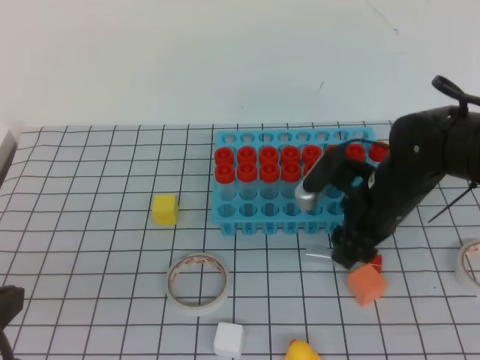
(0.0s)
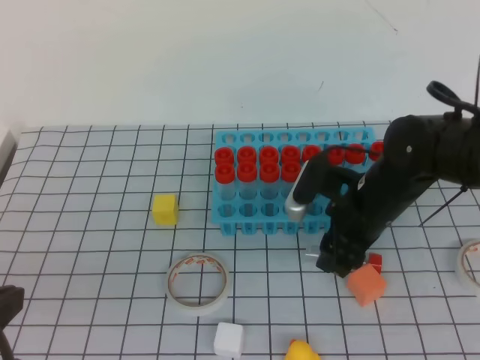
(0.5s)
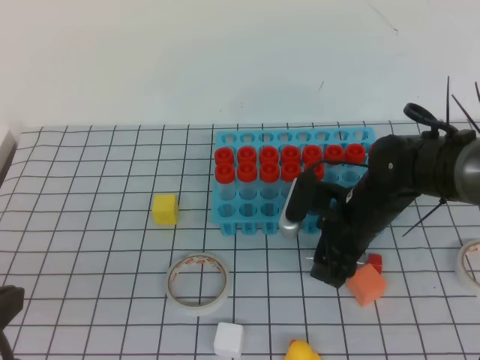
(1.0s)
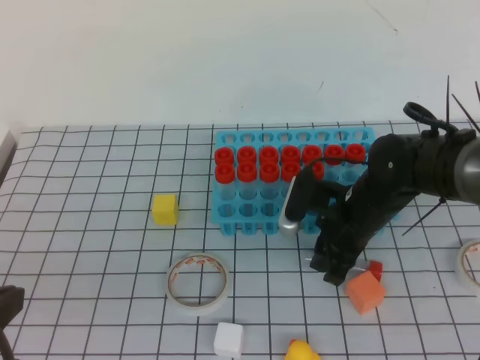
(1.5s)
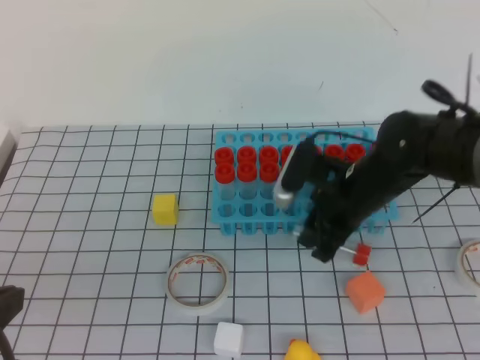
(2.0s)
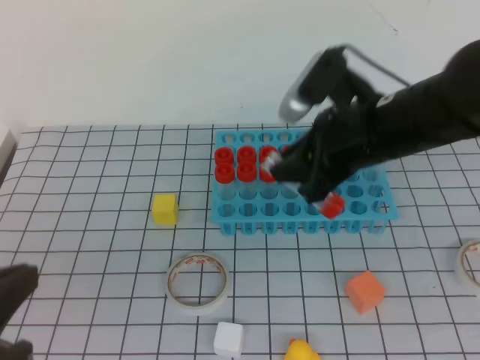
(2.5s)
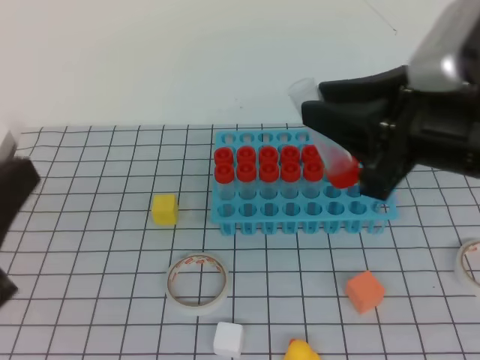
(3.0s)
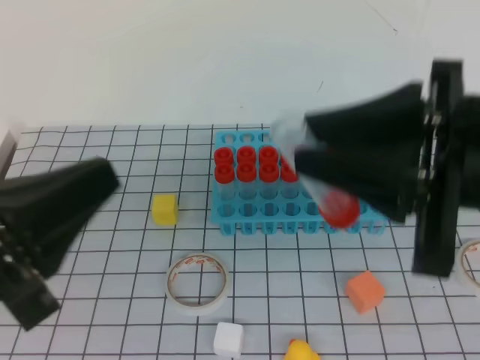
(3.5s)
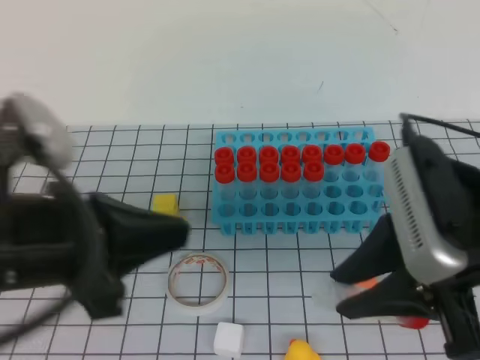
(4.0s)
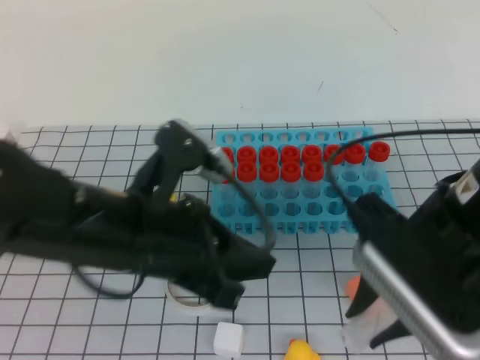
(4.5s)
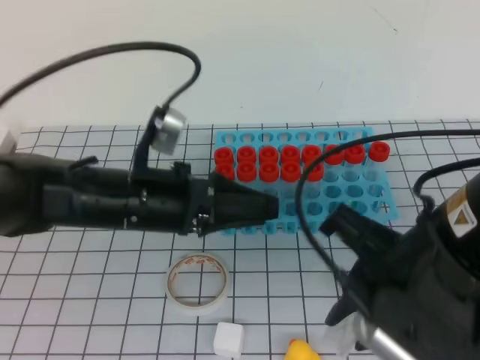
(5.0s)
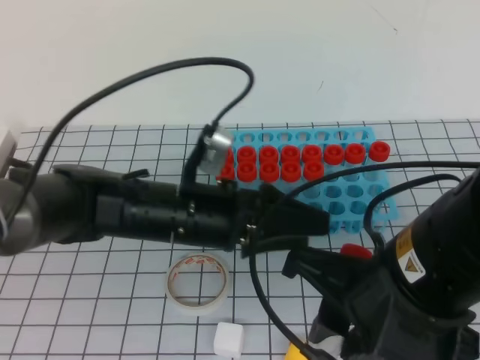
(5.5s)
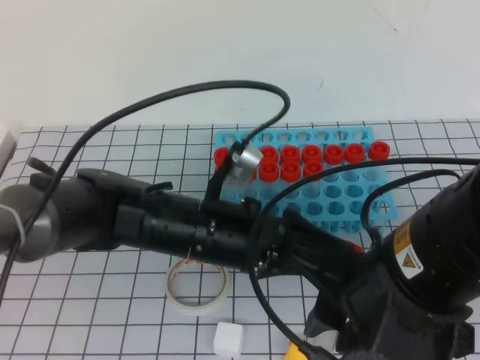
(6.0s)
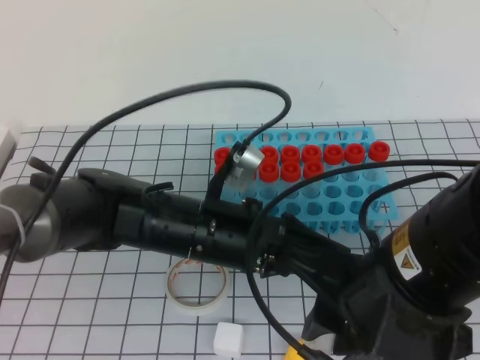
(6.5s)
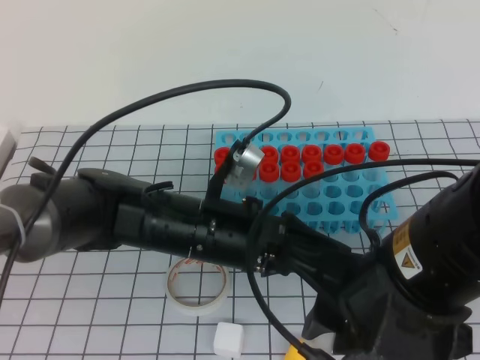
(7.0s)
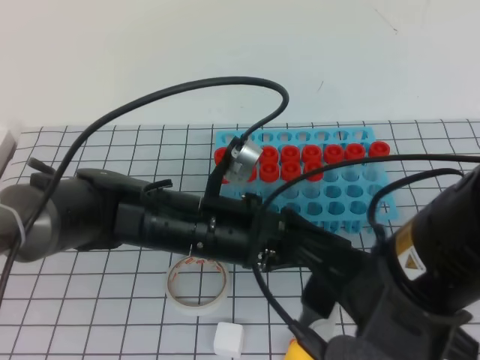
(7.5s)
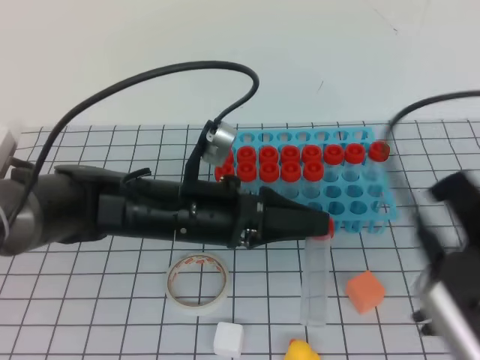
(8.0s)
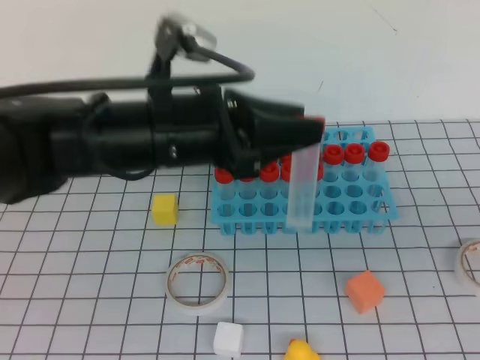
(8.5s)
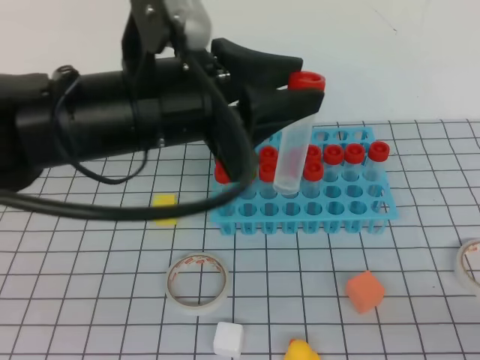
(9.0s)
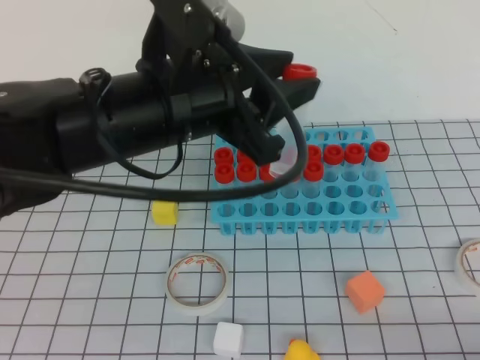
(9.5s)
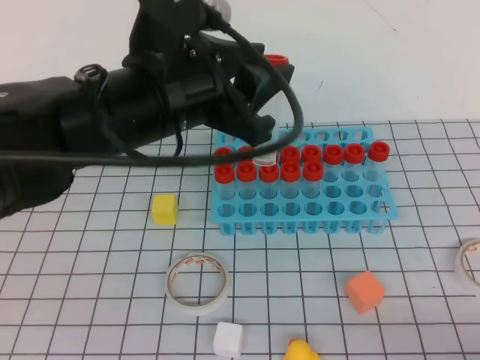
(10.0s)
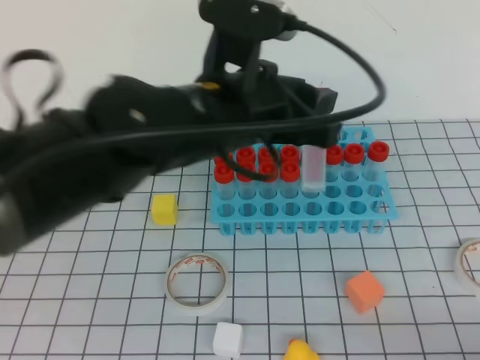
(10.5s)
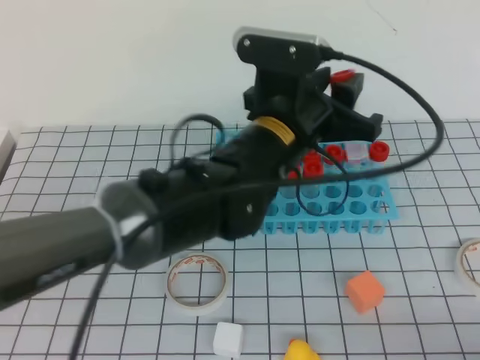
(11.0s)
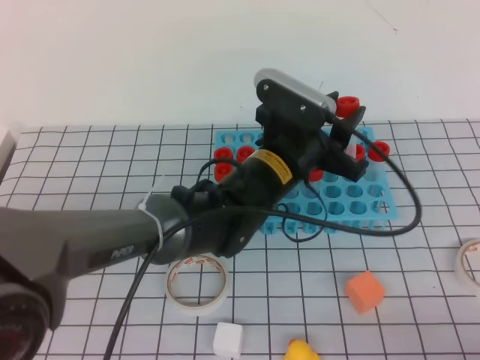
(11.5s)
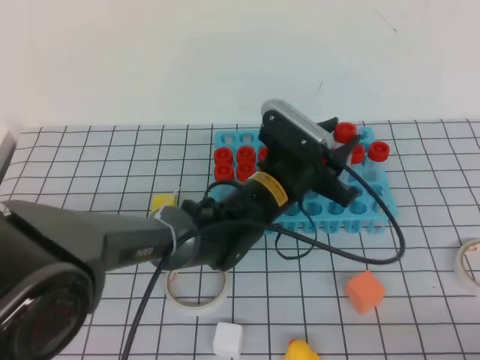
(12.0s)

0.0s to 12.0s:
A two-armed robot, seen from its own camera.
0.0s to 2.0s: The right gripper closes up.
2.0s to 4.0s: The left gripper is displaced forward and to the right by about 10 cm, while the right gripper travels backward and upward by approximately 20 cm.
4.0s to 6.0s: The left gripper is displaced to the right, forward and downward by about 20 cm, and opens, while the right gripper moves to the left, roughly 5 cm.
6.0s to 8.0s: The right gripper is displaced to the right and upward by roughly 10 cm, and opens, then closes once more. Meanwhile the left gripper closes its fingers.
8.0s to 10.0s: The right gripper is displaced downward, to the right and backward by some 20 cm. Meanwhile the left gripper heads upward, covering approximately 10 cm.
10.0s to 12.0s: The left gripper heads downward, to the right and forward, covering roughly 20 cm.

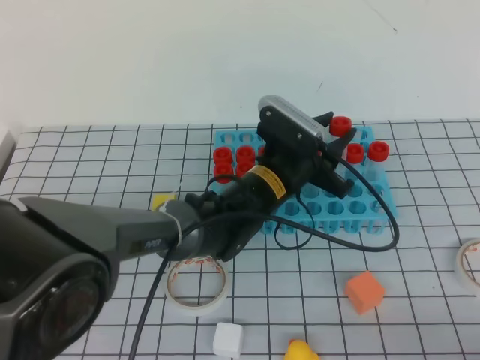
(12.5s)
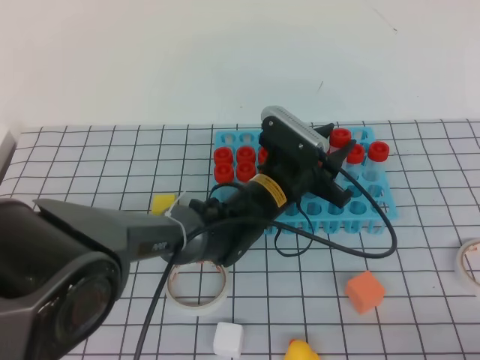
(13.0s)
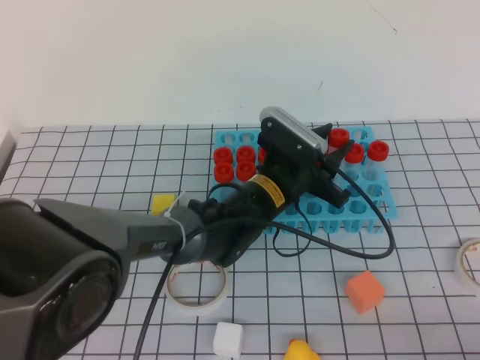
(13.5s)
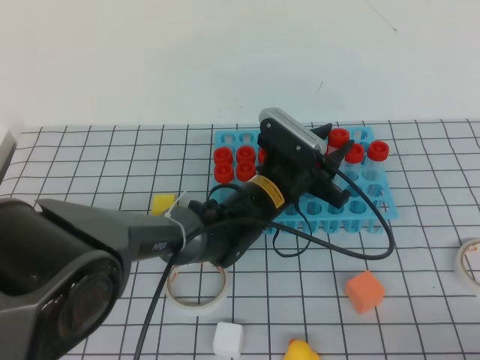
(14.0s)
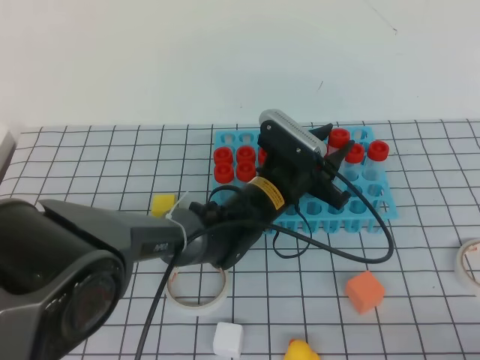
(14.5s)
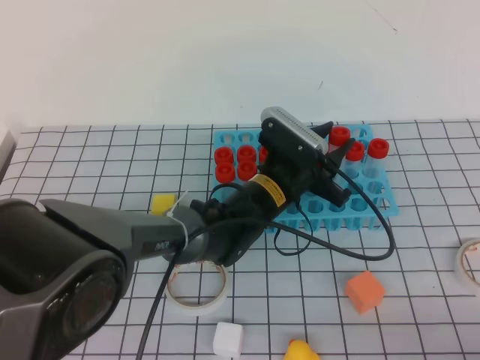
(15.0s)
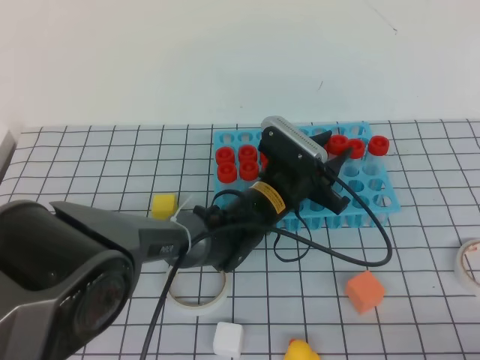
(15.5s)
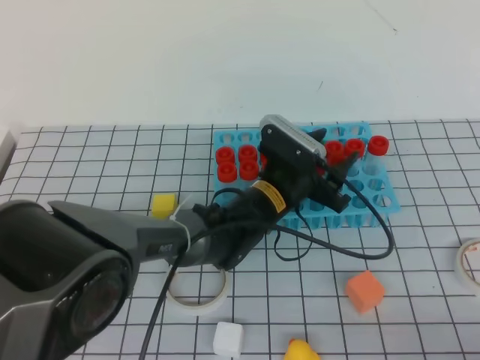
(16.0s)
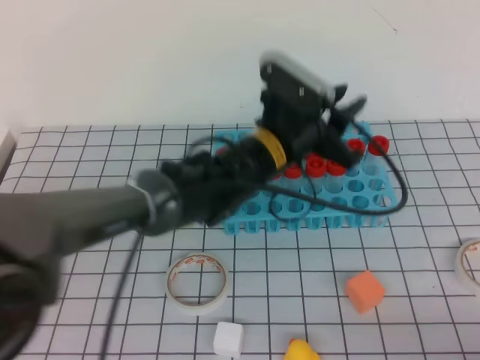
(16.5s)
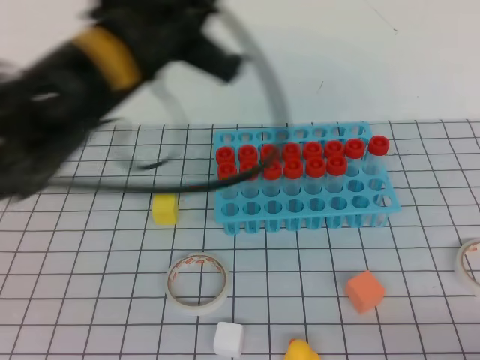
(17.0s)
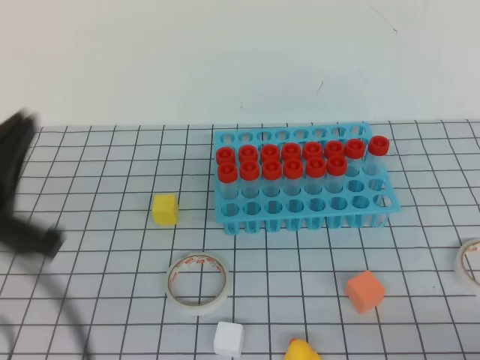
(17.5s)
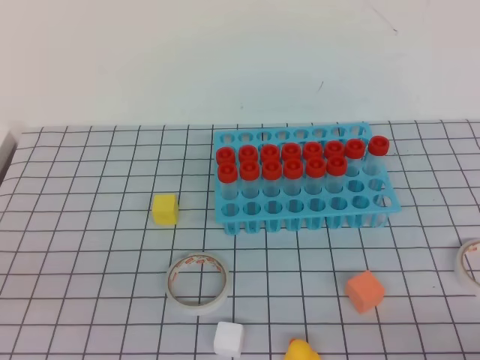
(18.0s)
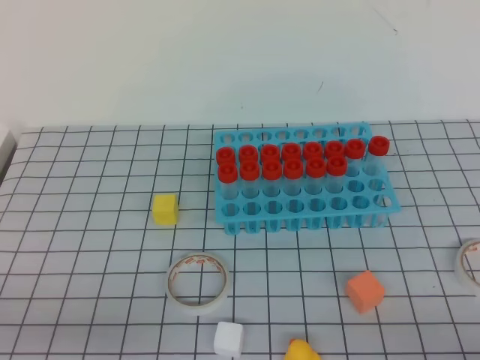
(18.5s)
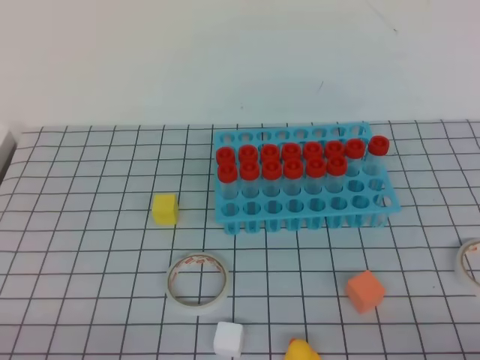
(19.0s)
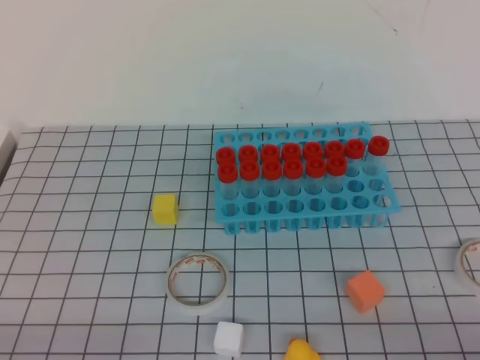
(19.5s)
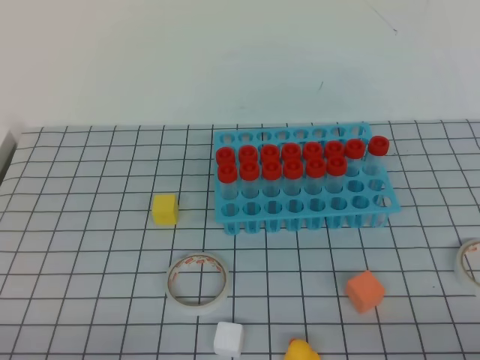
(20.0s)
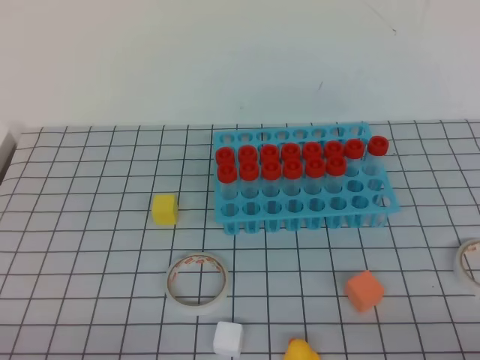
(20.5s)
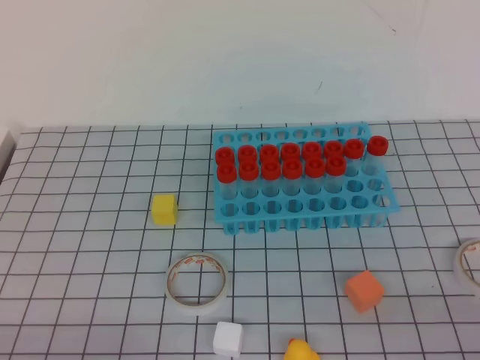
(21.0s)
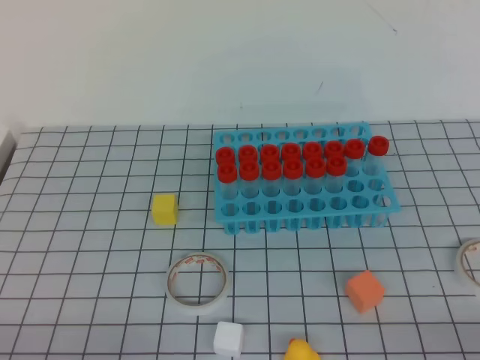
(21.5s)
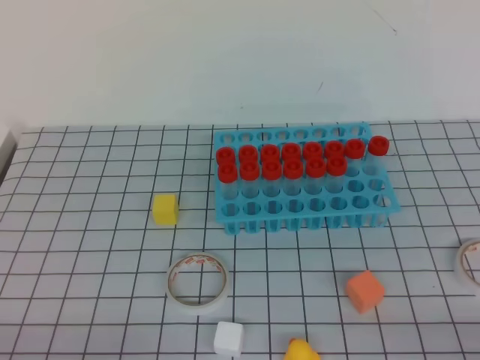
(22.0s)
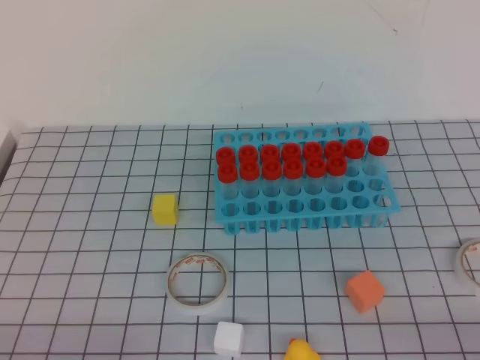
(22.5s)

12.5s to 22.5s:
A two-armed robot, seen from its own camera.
12.5s to 14.5s: The grippers move only a little.
14.5s to 16.5s: The left gripper shifts roughly 10 cm upward.
16.5s to 18.5s: The left gripper shifts approximately 40 cm backward and to the left, and closes up.

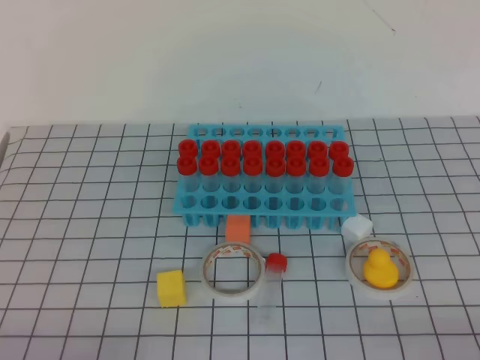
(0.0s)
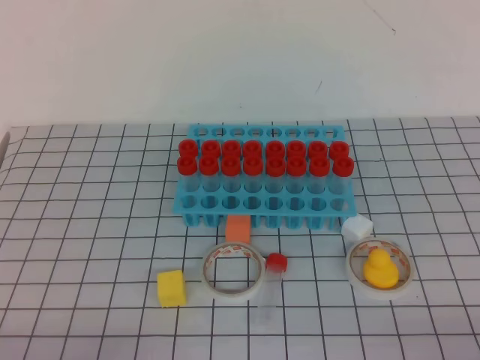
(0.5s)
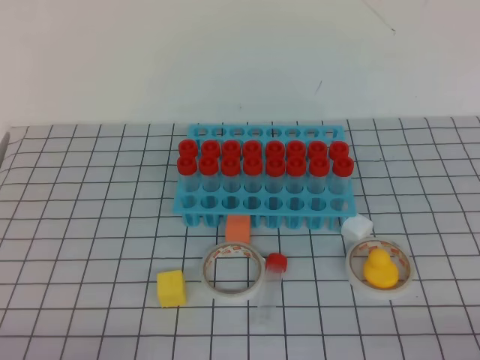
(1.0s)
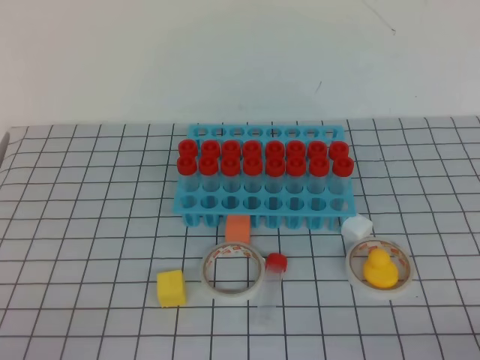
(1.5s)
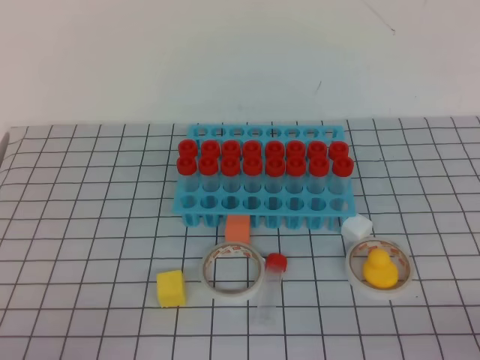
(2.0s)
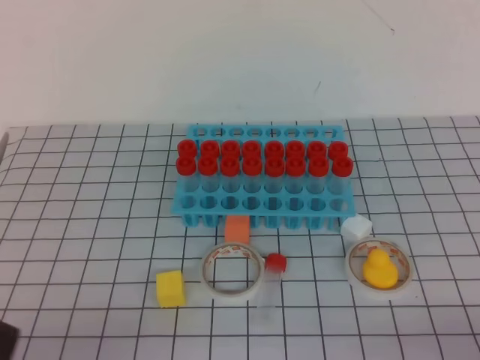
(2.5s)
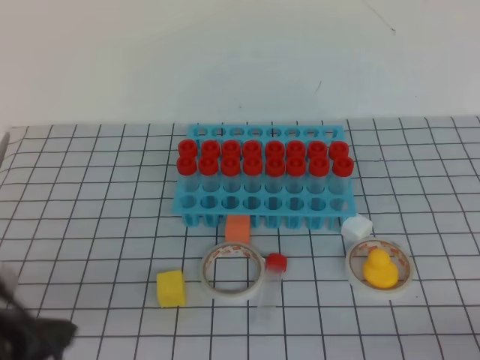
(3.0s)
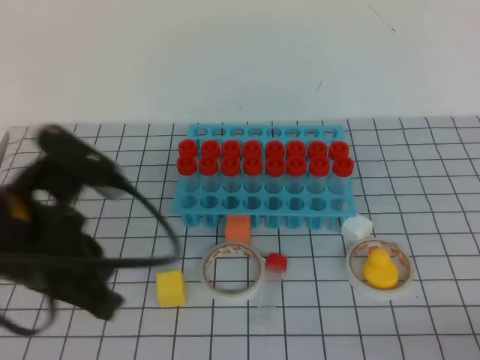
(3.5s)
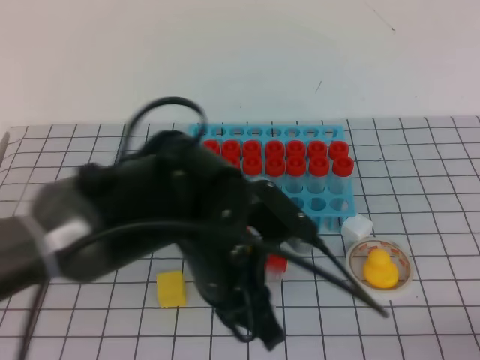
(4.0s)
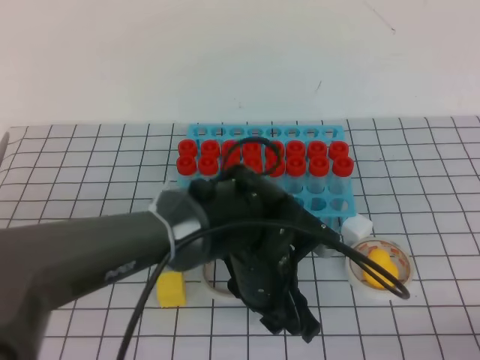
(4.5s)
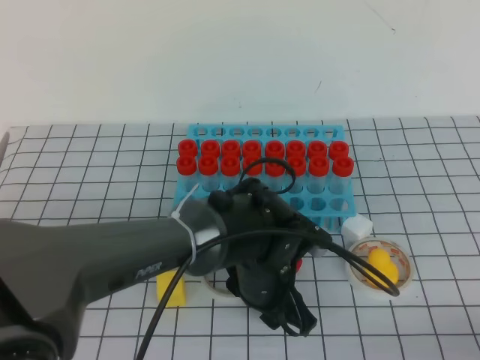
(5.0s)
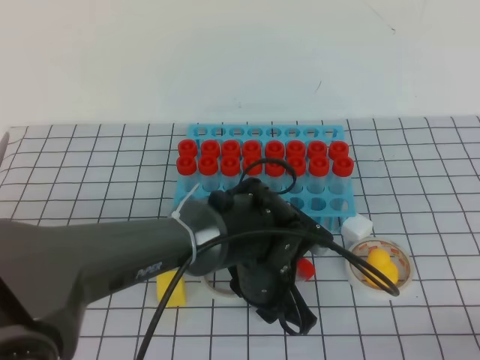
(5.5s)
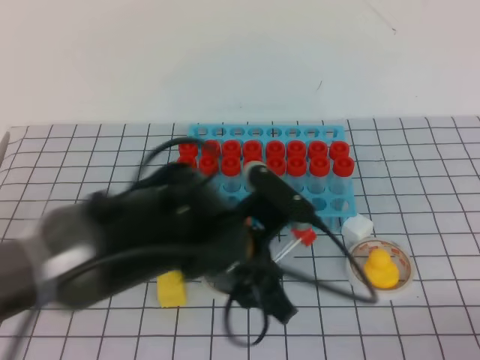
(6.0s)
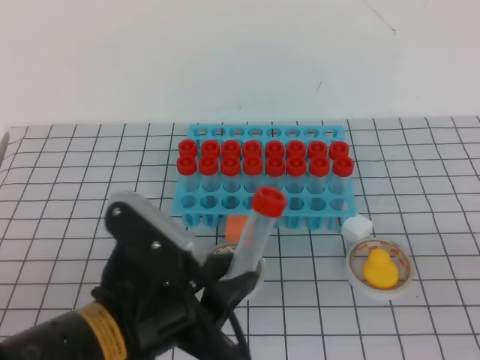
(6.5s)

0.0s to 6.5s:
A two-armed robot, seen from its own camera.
2.0s to 4.5s: The left gripper moves to the right and forward, roughly 35 cm, and opens up.
4.5s to 6.5s: The left gripper goes roughly 15 cm backward, to the left and upward, and closes its fingers. Meanwhile the right gripper goes some 10 cm upward.
